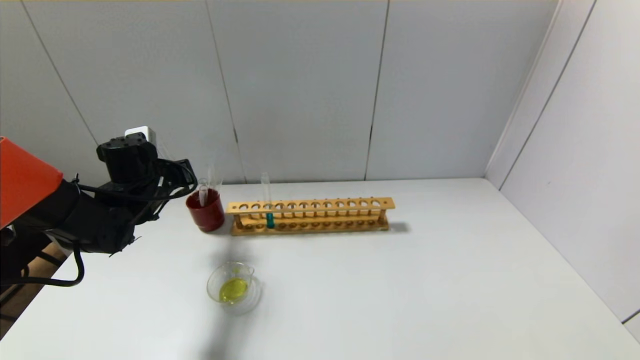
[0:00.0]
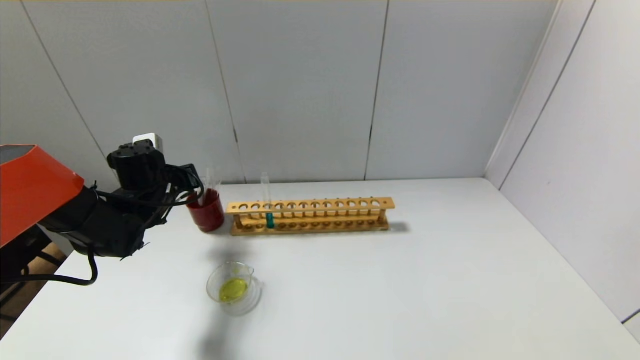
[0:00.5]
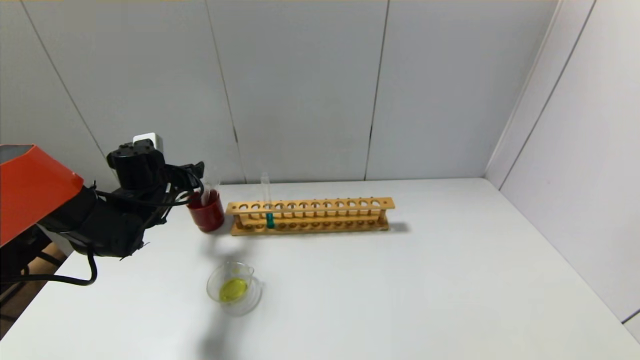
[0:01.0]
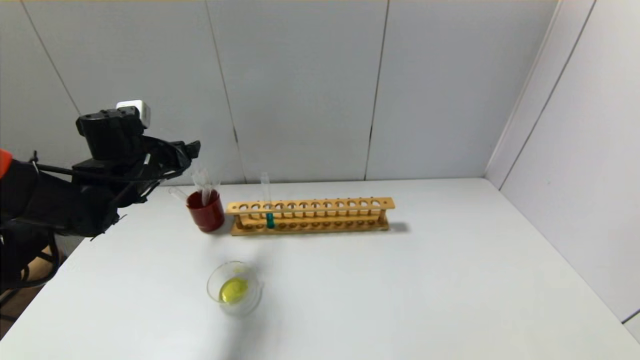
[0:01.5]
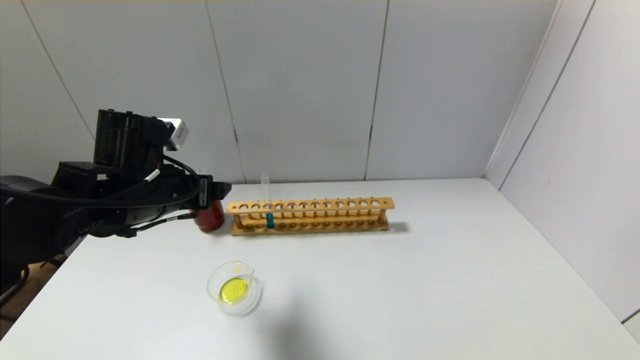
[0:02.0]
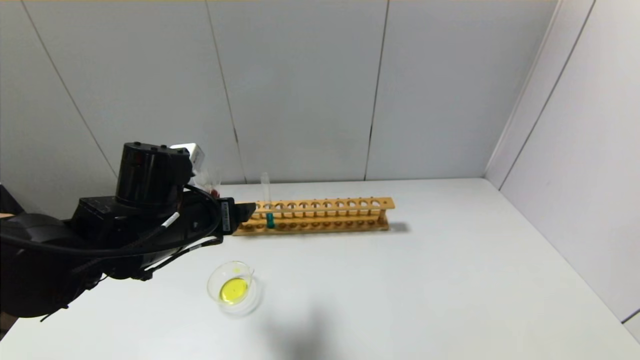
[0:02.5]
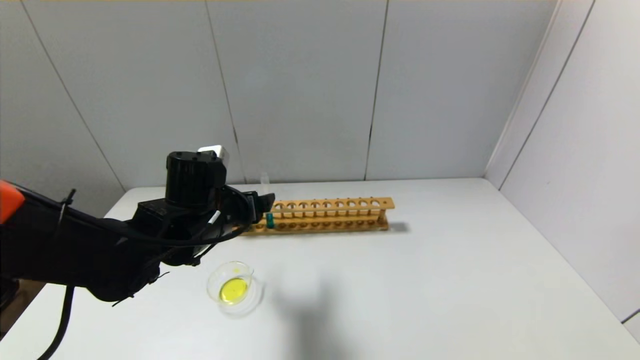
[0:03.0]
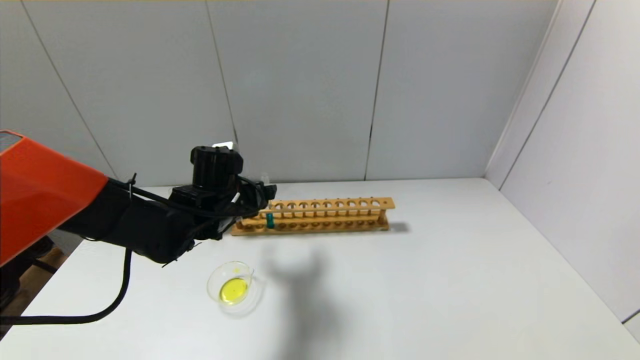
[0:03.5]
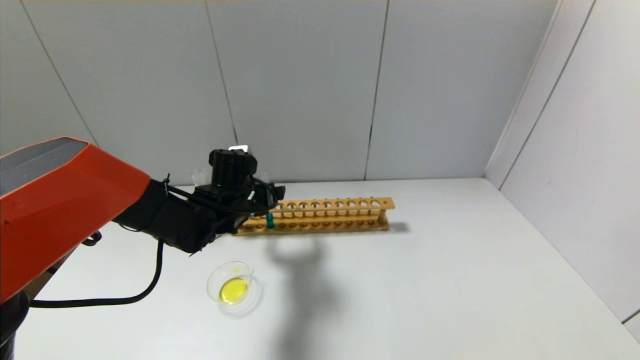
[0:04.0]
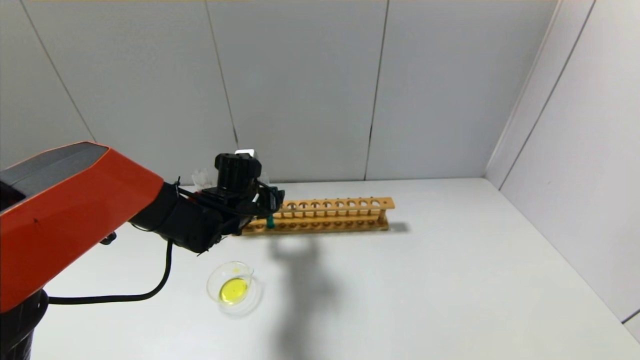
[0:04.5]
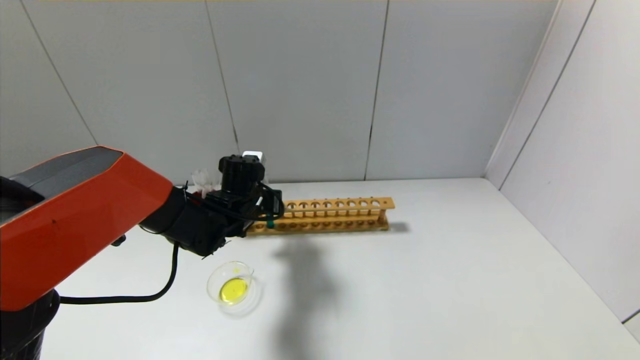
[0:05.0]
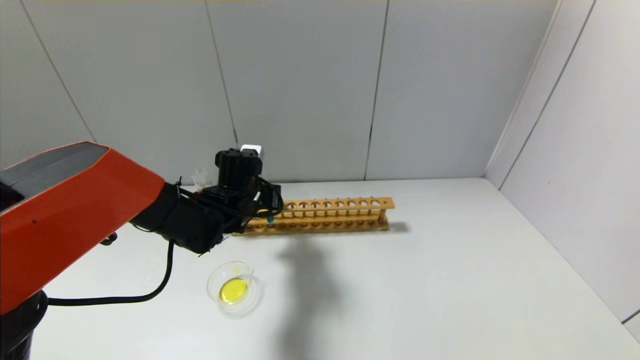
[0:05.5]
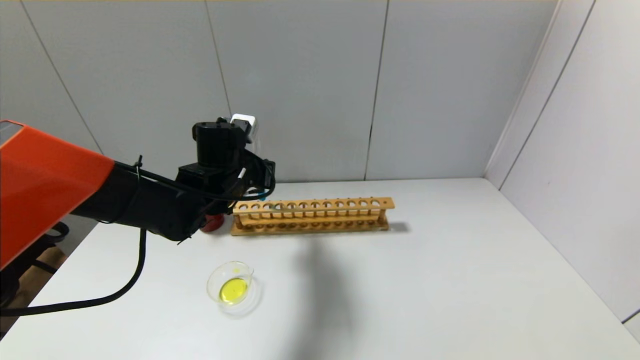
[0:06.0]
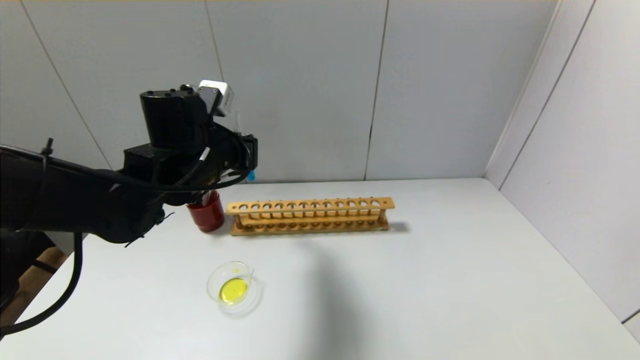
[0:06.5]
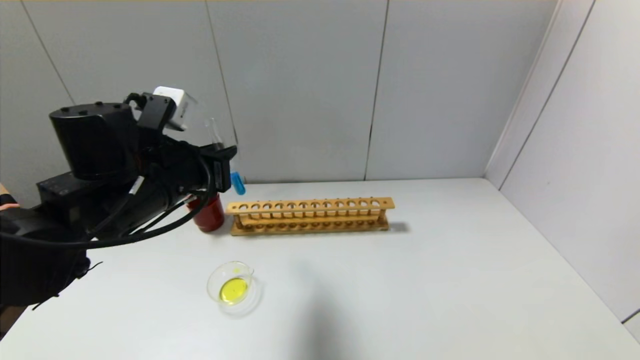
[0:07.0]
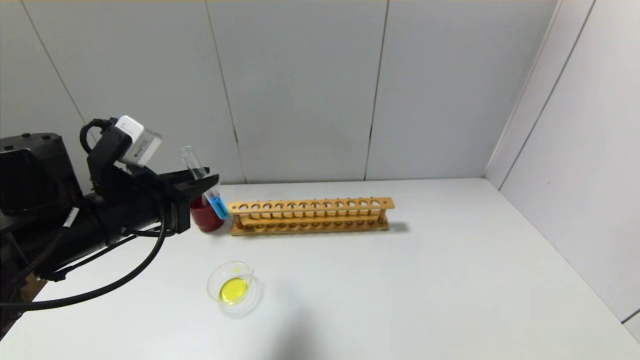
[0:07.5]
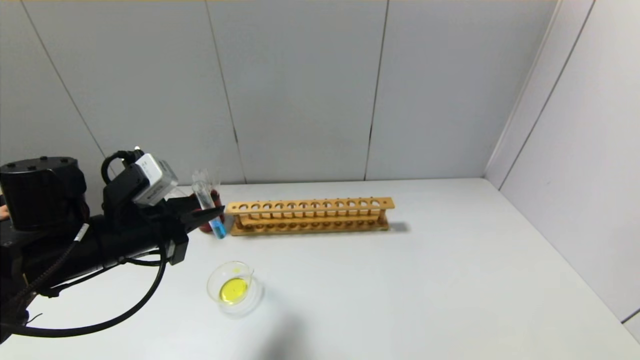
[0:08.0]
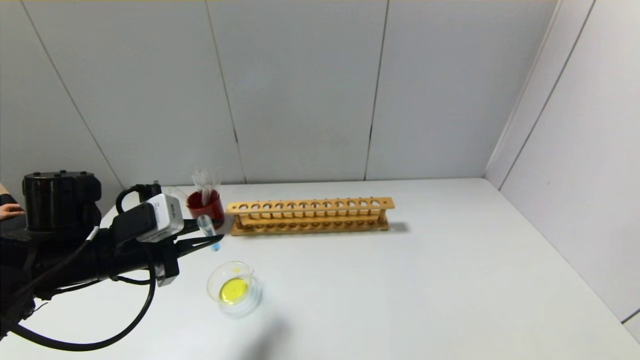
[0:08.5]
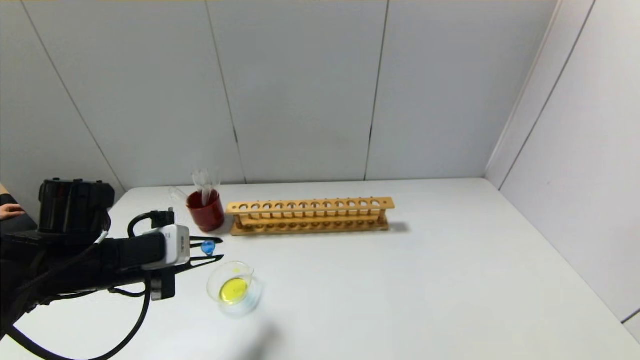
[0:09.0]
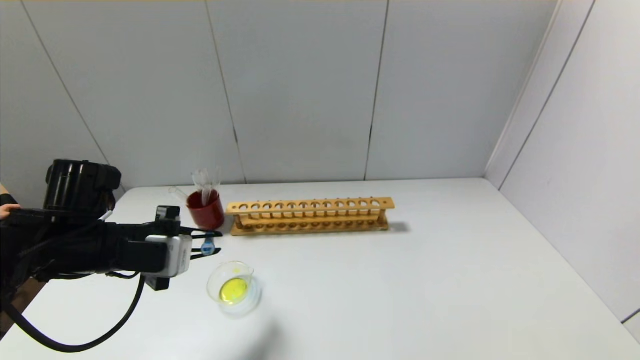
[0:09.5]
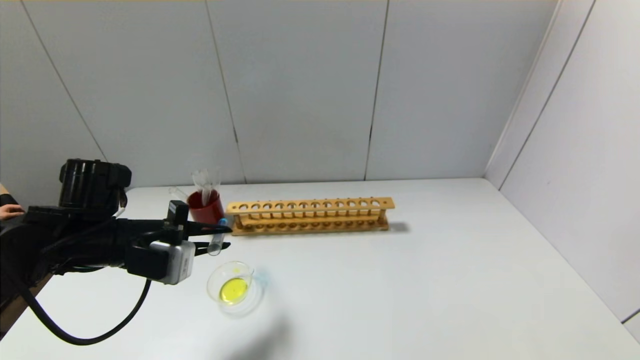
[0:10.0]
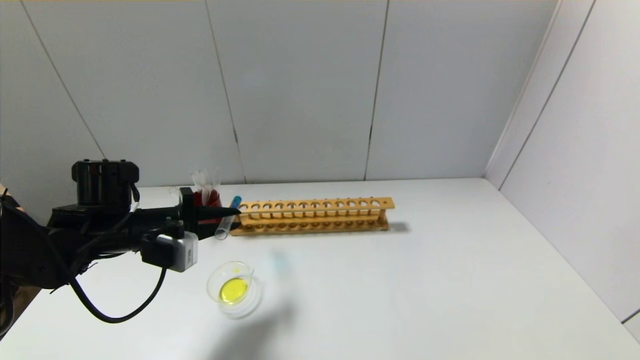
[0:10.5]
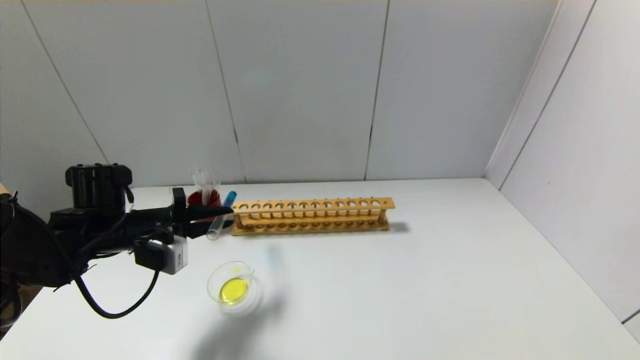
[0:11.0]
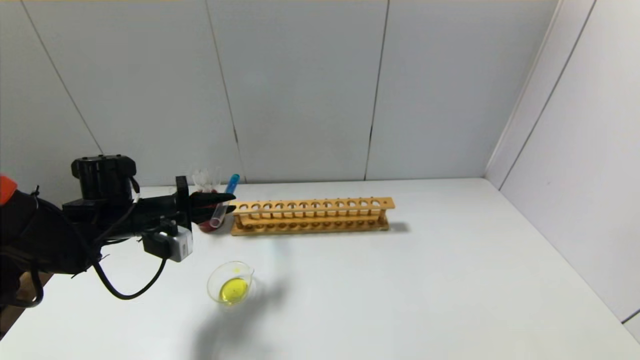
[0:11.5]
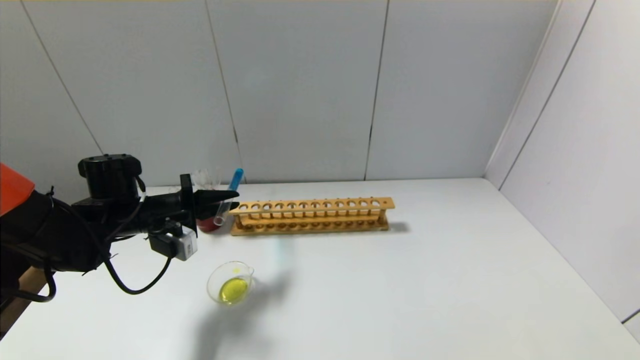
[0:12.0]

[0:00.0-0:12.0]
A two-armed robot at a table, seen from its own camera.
Step, 1.0 to 5.0 s: Grasp the blue reagent with the left gripper.
0.0 to 2.0 s: The left gripper moves backward, to the right and upward, some 15 cm, and opens.
2.0 to 4.0 s: The left gripper heads forward, downward and to the right, covering roughly 15 cm.
4.0 to 6.0 s: The left gripper shifts roughly 5 cm upward, and closes its fingers.
6.0 to 8.0 s: The left gripper is displaced backward and to the left by some 15 cm.
10.0 to 12.0 s: The left gripper goes approximately 10 cm forward.

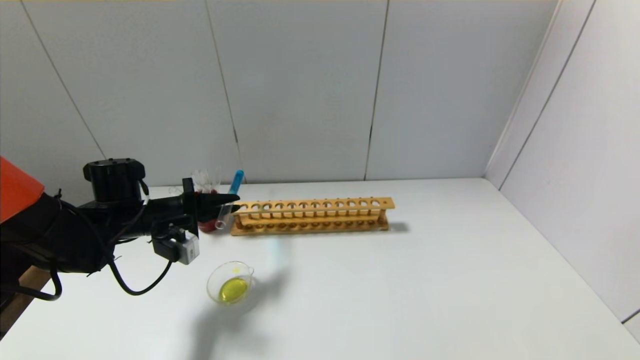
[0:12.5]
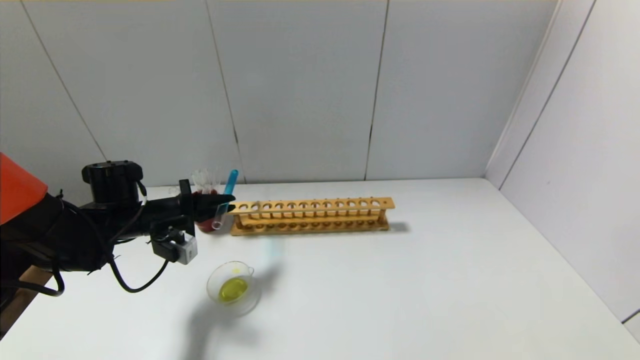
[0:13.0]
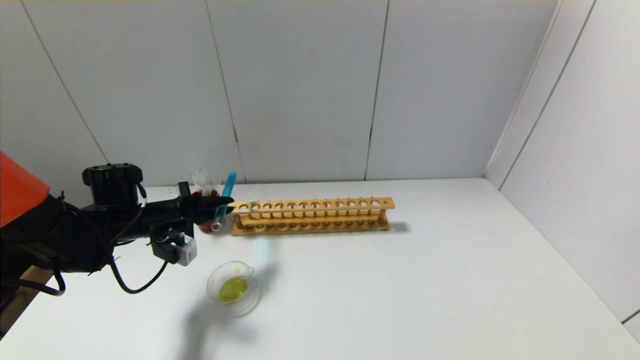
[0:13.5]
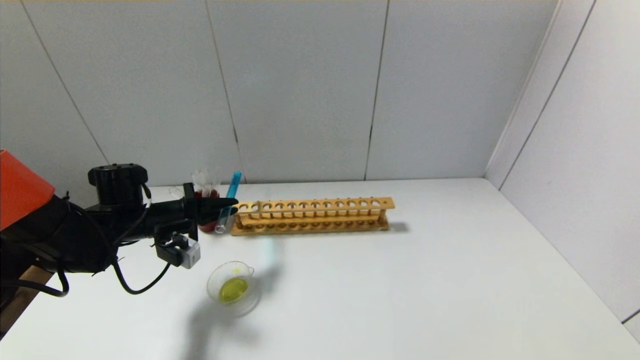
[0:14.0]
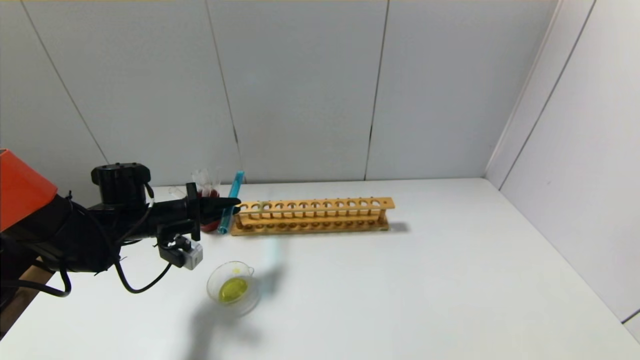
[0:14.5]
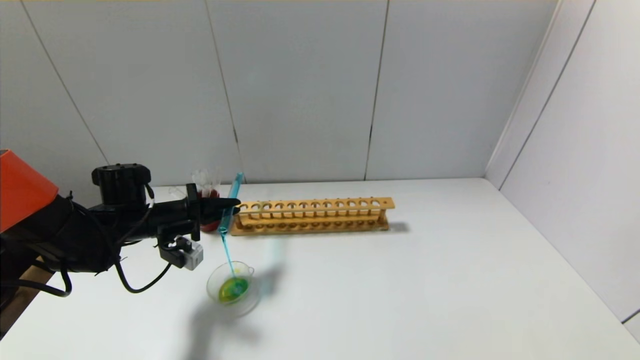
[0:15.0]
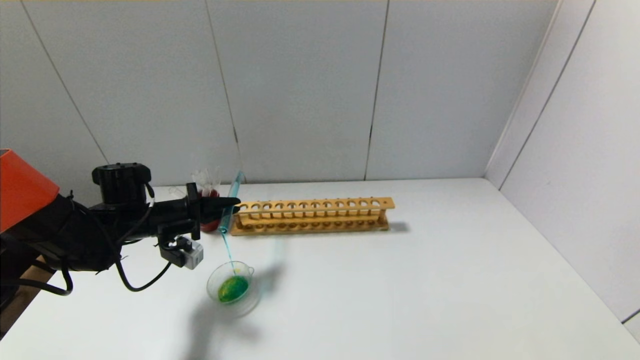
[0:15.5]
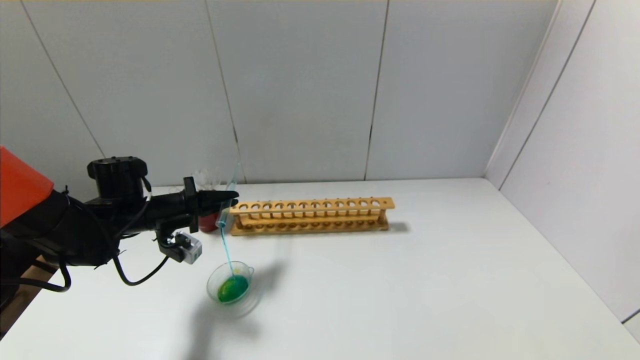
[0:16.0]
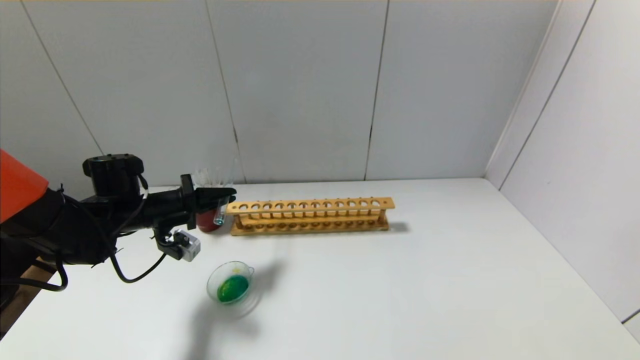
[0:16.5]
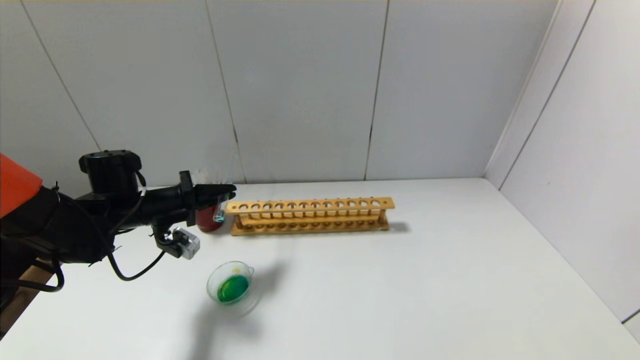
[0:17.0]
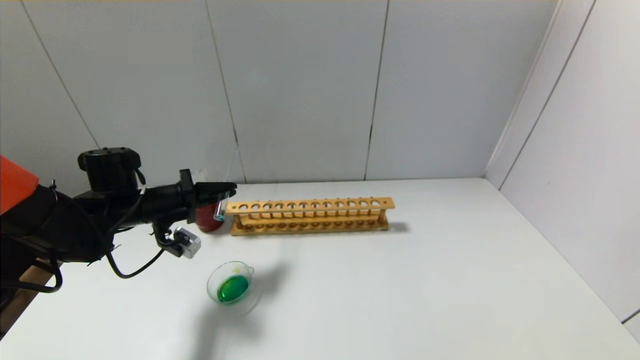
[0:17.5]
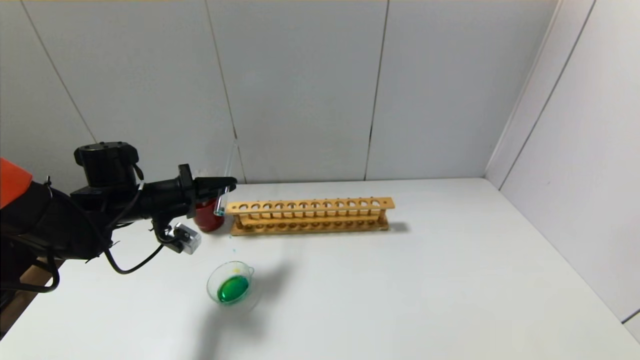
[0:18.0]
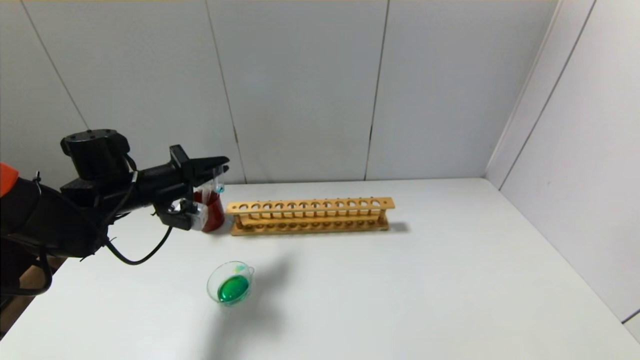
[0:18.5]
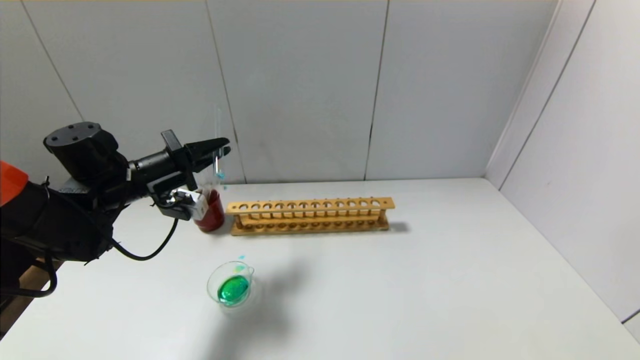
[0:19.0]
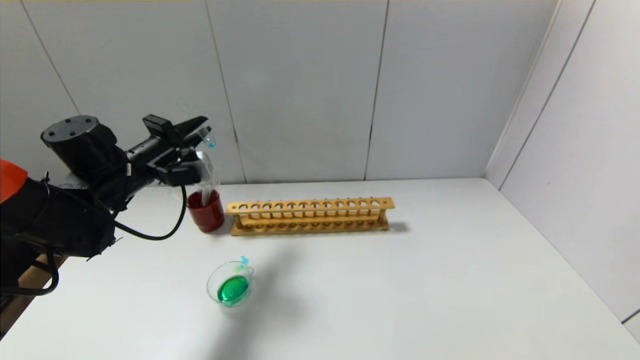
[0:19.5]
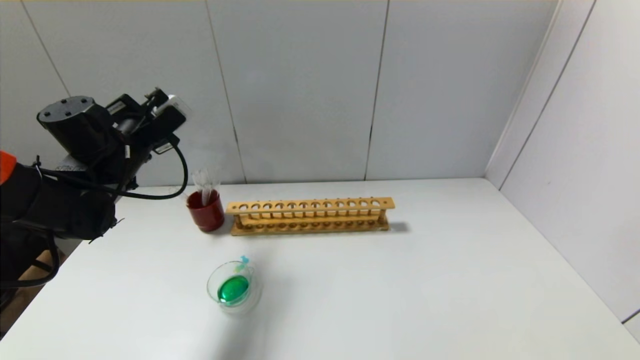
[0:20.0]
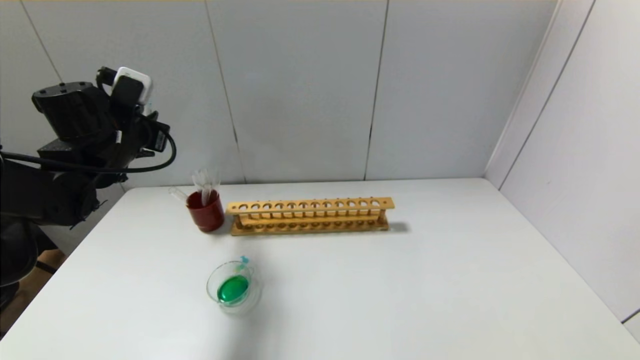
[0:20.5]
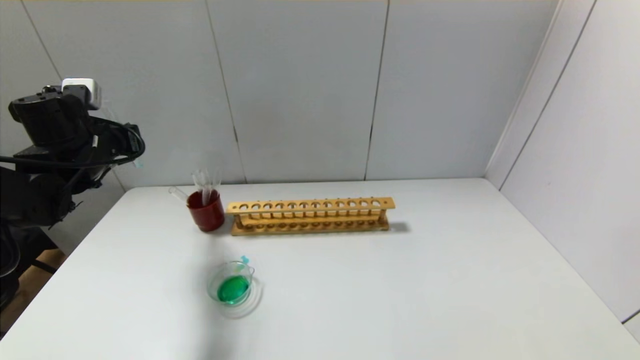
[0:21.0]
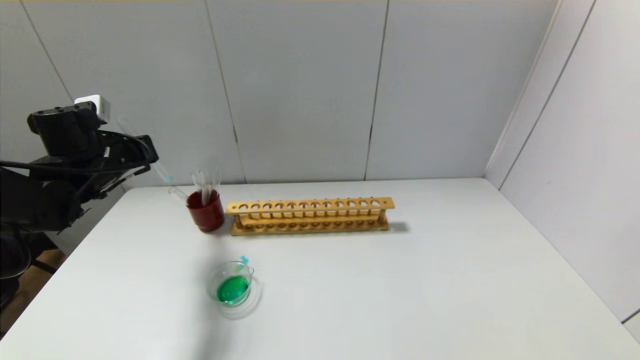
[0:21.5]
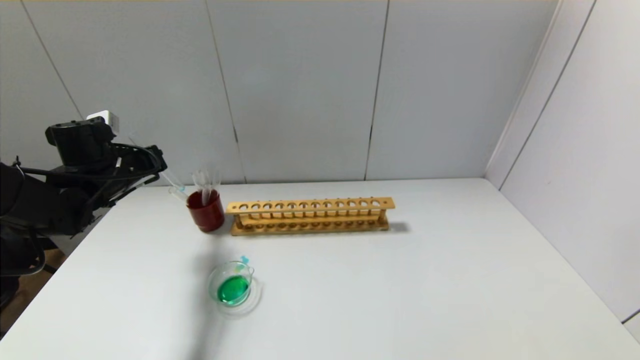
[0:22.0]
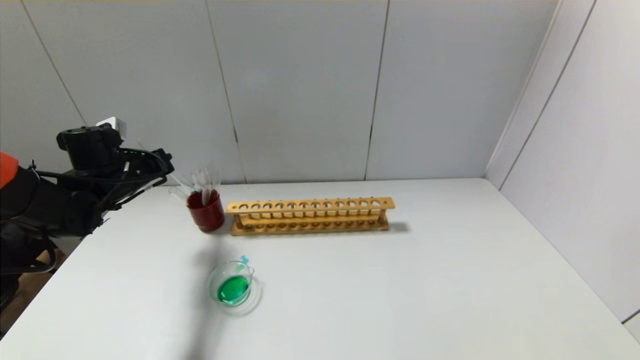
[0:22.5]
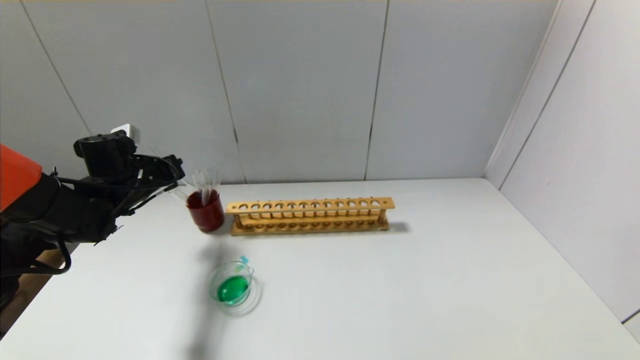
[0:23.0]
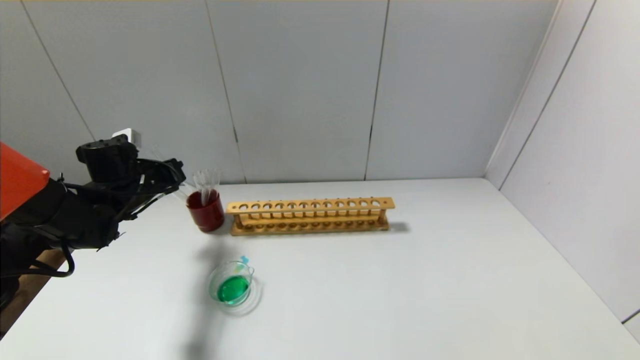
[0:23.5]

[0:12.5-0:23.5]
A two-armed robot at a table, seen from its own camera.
Step, 12.5 to 19.5 s: Pour the blue reagent into the graduated cylinder with the left gripper.
12.5 to 16.0 s: The grippers make only small movements.
16.0 to 18.0 s: There are only small adjustments of the grippers.
18.0 to 20.0 s: The left gripper moves upward, some 10 cm.
20.0 to 21.5 s: The left gripper travels to the left by roughly 5 cm.
21.5 to 23.5 s: The left gripper goes some 5 cm downward.
